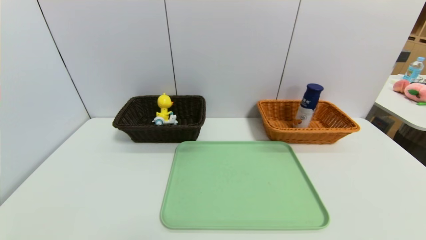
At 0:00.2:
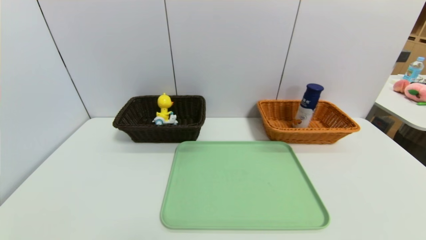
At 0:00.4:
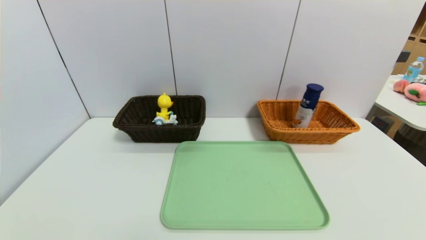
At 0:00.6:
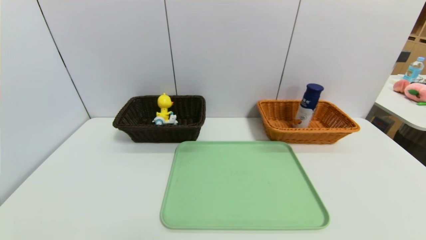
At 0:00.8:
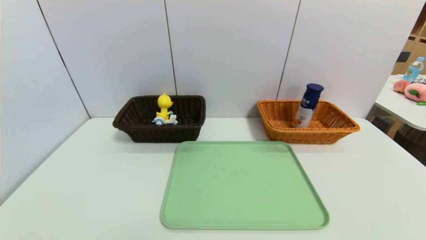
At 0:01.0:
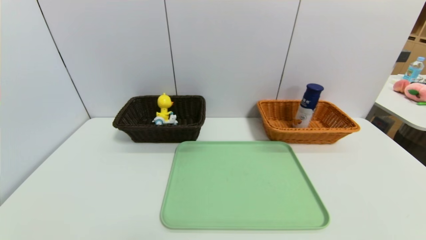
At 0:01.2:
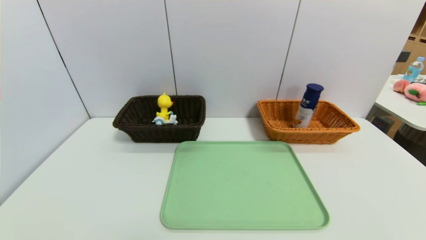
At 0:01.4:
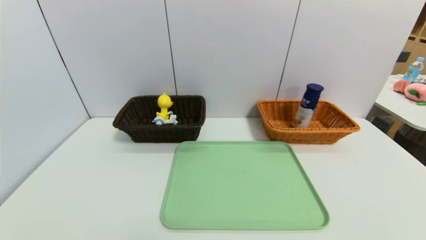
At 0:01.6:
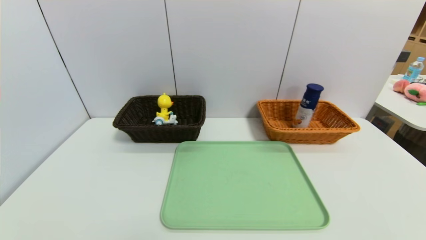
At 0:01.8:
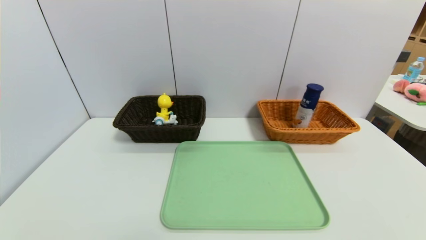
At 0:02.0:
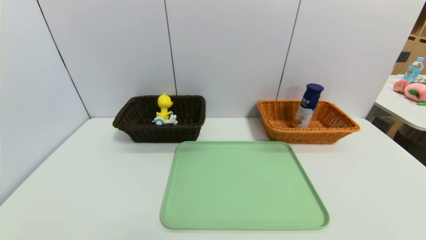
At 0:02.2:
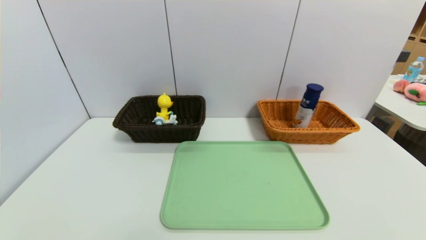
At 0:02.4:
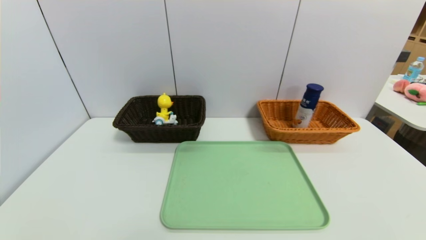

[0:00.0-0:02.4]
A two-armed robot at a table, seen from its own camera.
Task of the whole recording: place the food in the right basket with the right gripper, and place the non food items in the left basket with the left gripper.
0:01.2 to 0:02.4: Neither gripper changes place.

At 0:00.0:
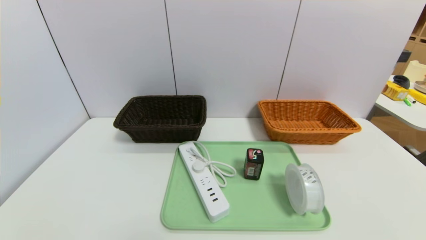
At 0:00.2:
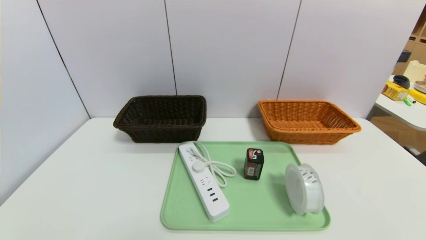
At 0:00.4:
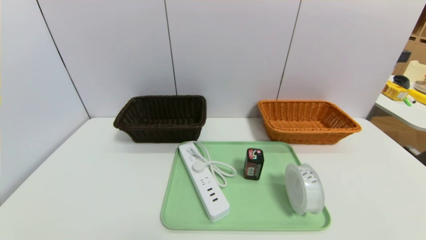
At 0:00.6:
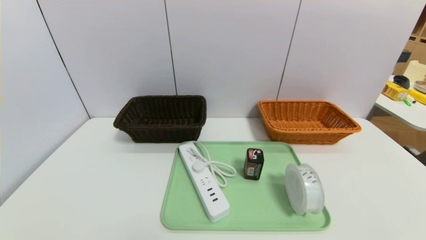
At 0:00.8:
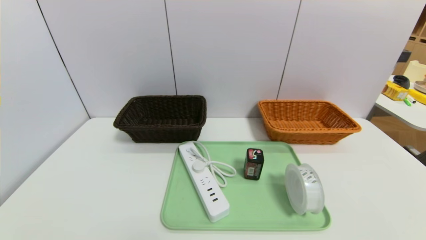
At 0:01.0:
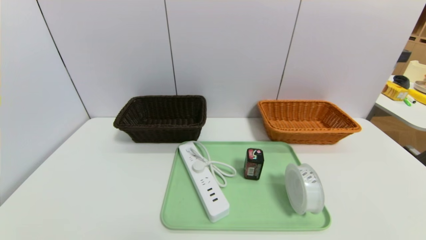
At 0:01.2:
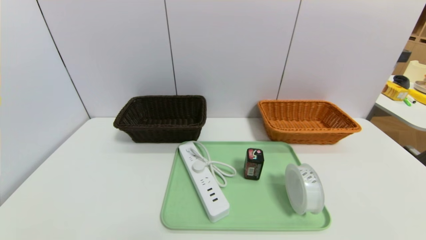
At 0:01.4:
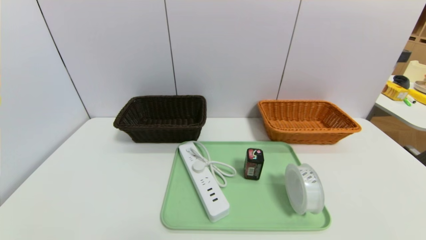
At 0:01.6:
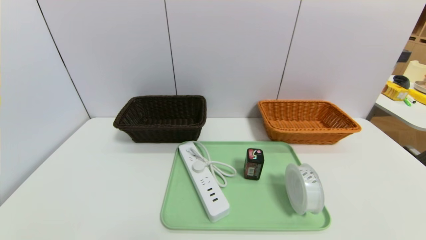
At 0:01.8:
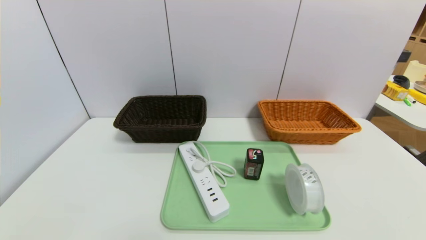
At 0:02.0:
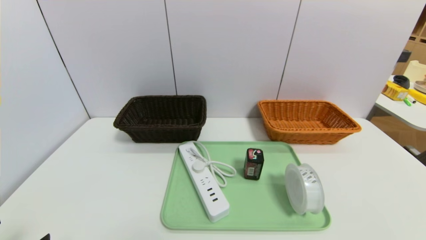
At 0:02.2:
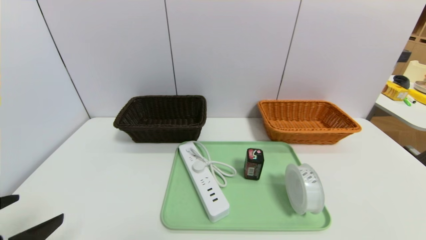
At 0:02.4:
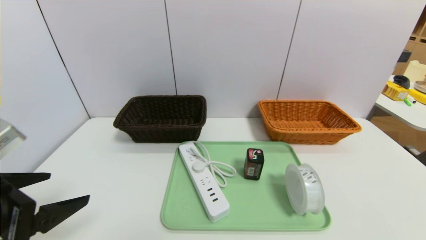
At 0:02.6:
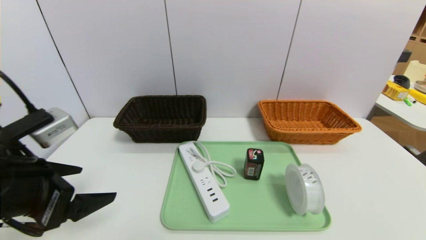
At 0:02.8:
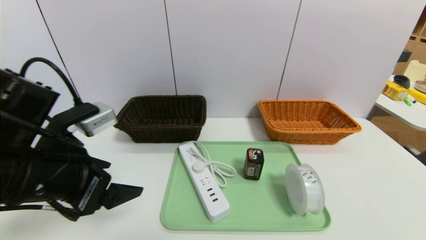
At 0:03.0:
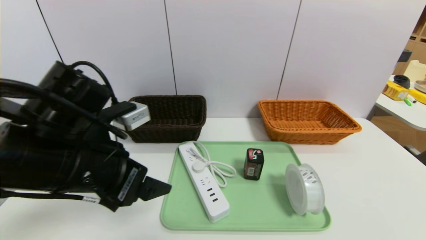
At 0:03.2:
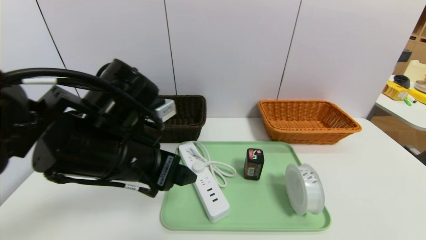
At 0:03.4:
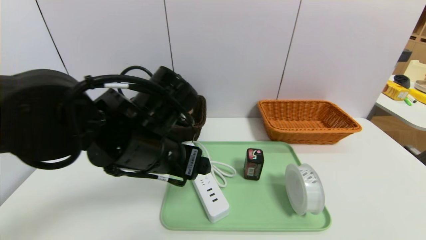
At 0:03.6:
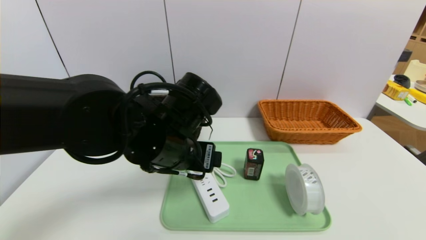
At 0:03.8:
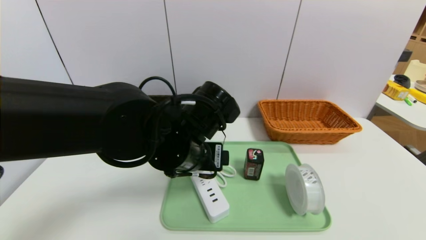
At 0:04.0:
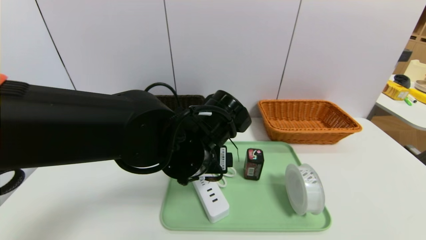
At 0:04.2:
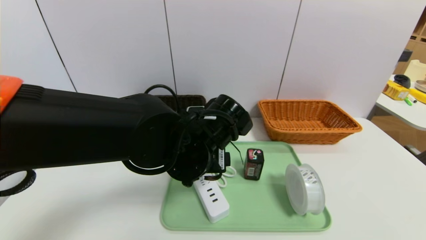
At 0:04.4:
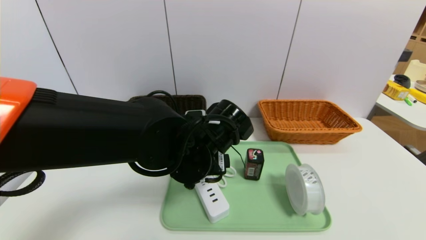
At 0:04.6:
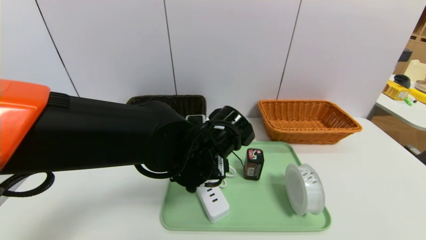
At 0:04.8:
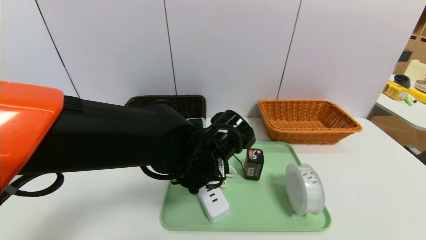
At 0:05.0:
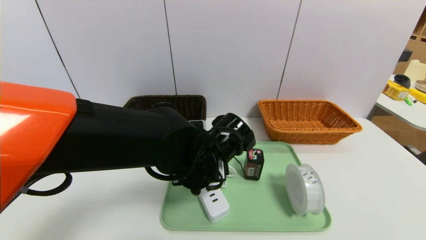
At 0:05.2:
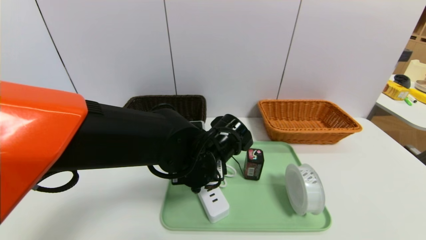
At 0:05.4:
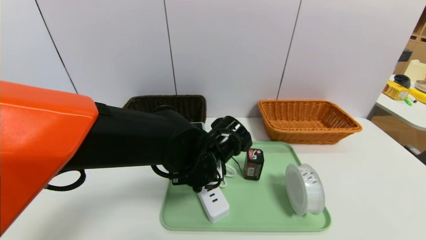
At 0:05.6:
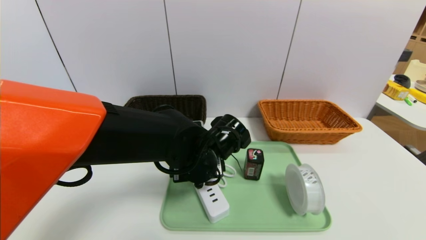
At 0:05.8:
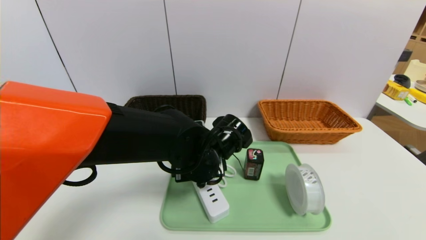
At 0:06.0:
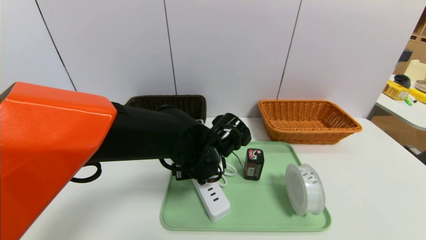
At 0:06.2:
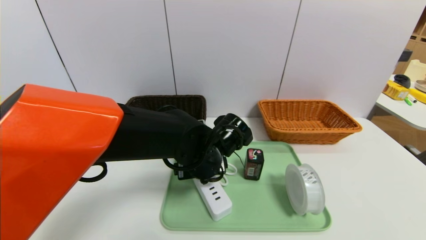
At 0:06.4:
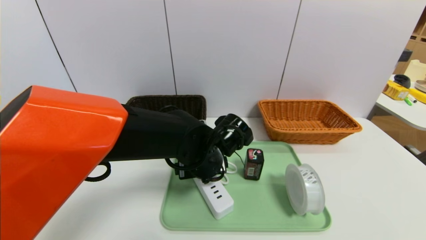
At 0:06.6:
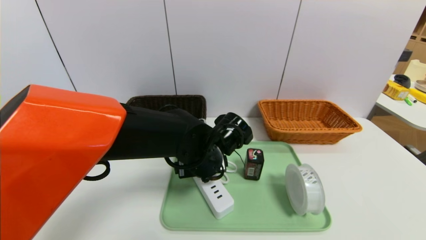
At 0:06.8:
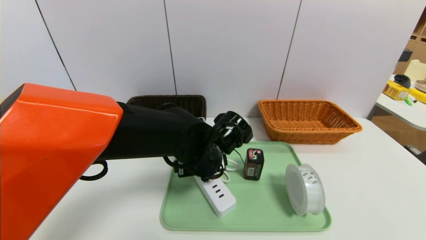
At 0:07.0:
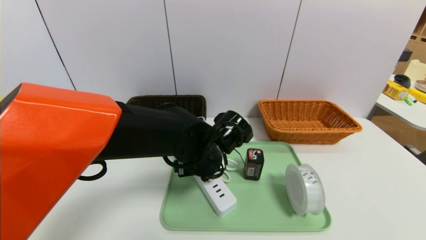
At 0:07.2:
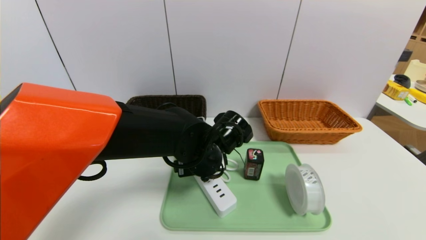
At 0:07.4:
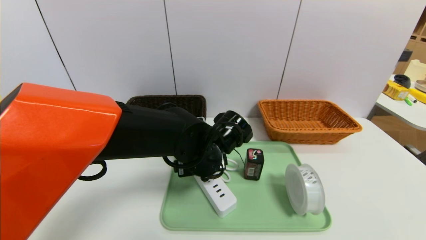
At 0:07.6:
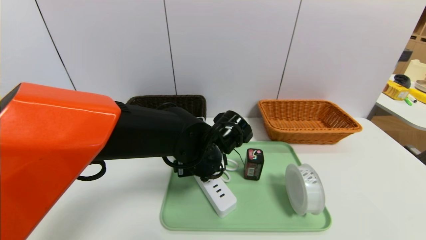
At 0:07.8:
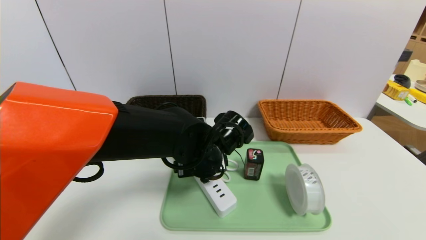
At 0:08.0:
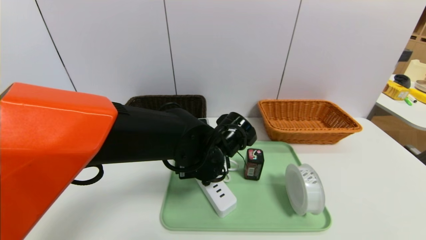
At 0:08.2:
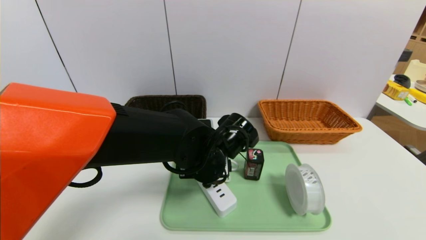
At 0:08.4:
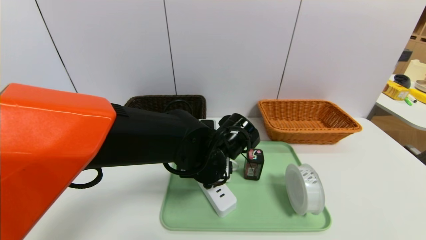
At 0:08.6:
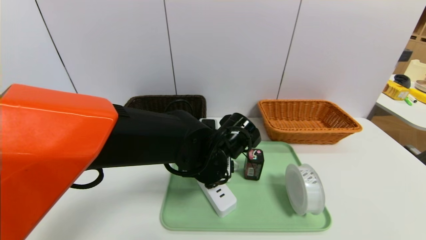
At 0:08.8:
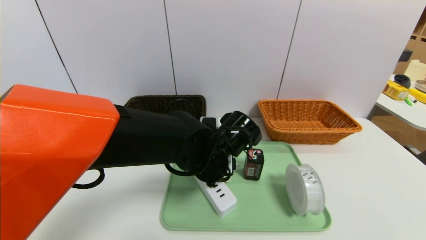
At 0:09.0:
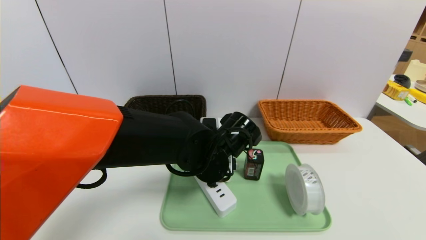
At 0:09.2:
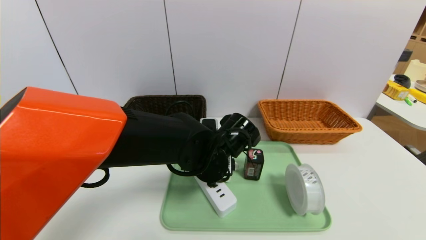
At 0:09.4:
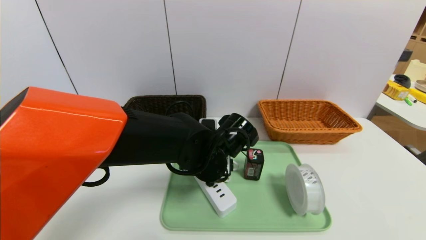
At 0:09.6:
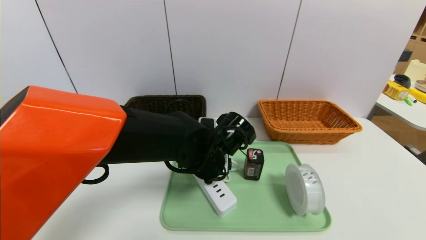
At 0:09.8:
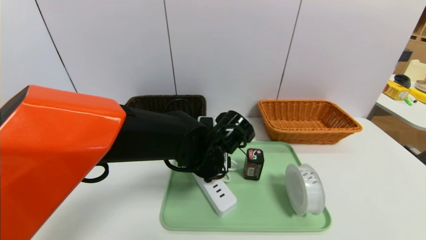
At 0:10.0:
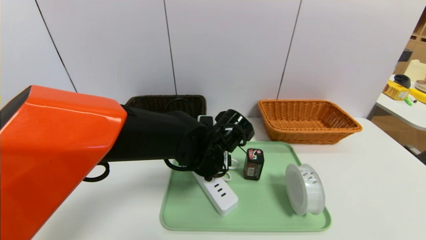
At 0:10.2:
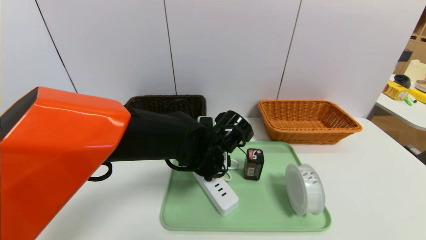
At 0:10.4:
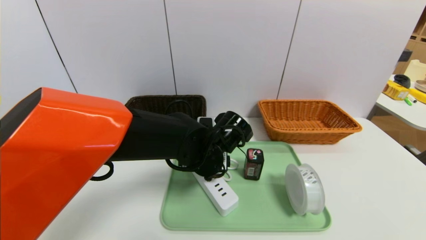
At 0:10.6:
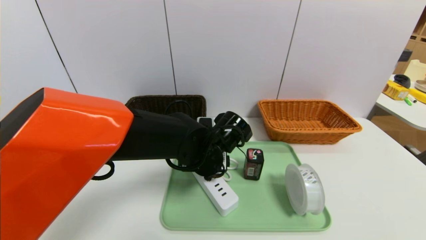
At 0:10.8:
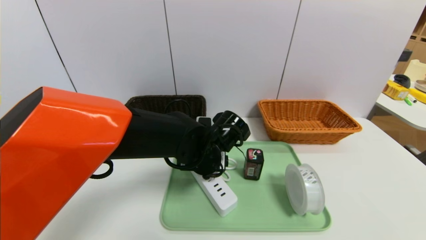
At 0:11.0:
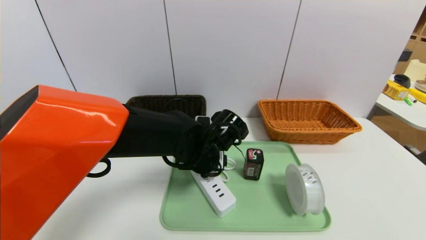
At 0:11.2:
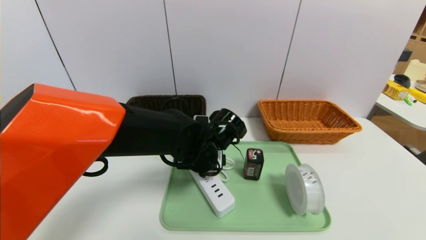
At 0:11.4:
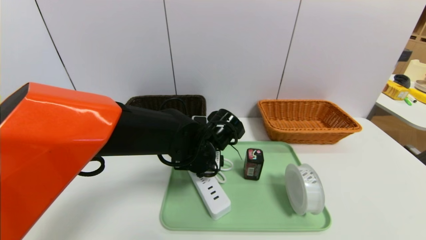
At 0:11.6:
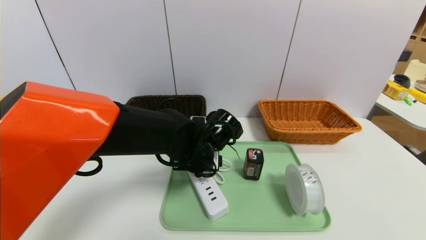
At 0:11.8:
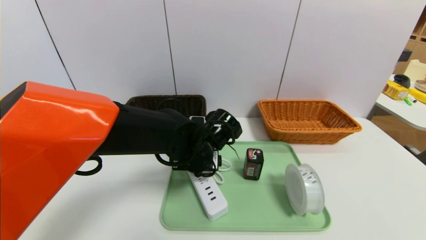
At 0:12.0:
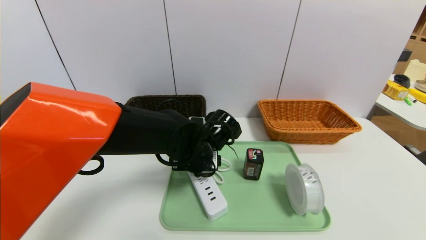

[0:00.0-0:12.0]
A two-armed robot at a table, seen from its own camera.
Task of the whole recording: place the food in the right basket with the right gripper, and place the non food items in the left basket with the left gripper.
0:01.6 to 0:03.0: The left gripper heads forward, upward and to the right, covering about 30 cm.
0:03.0 to 0:04.4: The left gripper heads to the right, downward and forward, covering some 15 cm.
0:04.4 to 0:06.0: The left gripper moves some 5 cm.
0:06.0 to 0:07.6: Both grippers stay put.
0:07.6 to 0:12.0: There are only small adjustments of the grippers.

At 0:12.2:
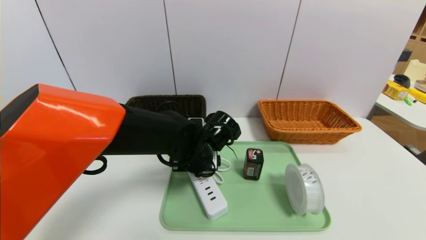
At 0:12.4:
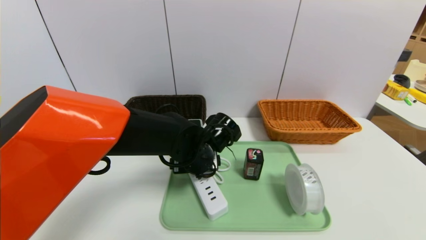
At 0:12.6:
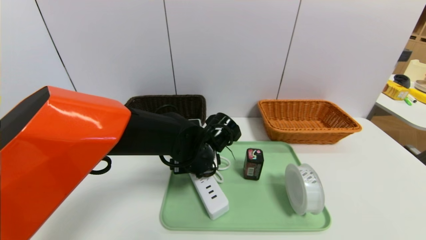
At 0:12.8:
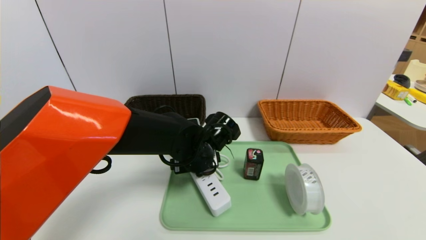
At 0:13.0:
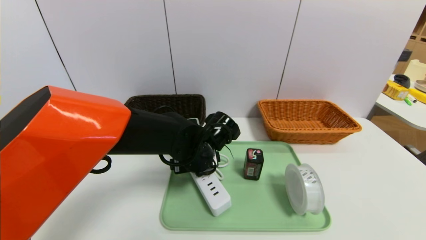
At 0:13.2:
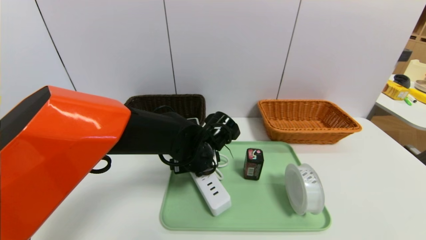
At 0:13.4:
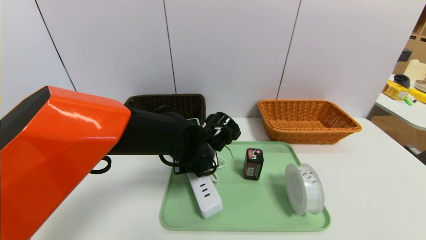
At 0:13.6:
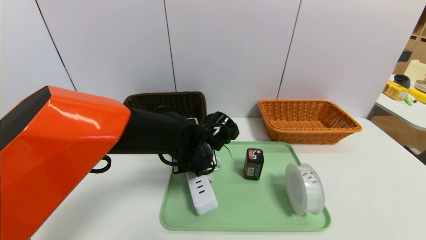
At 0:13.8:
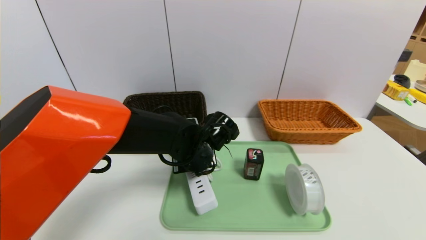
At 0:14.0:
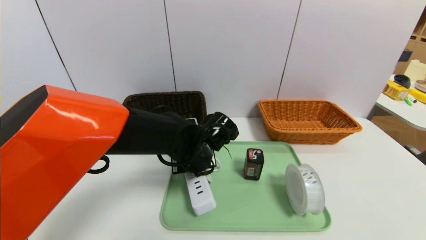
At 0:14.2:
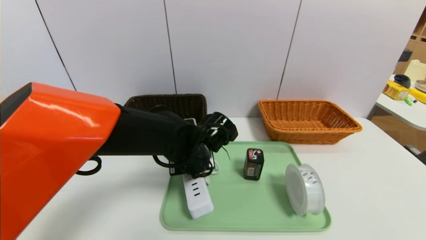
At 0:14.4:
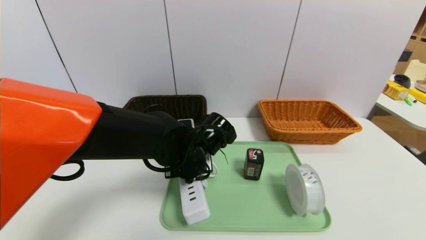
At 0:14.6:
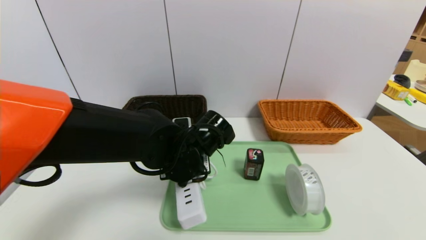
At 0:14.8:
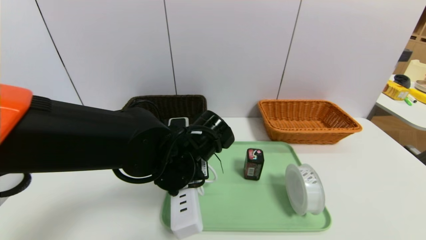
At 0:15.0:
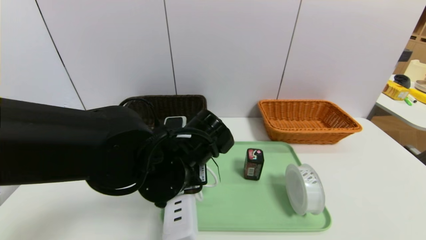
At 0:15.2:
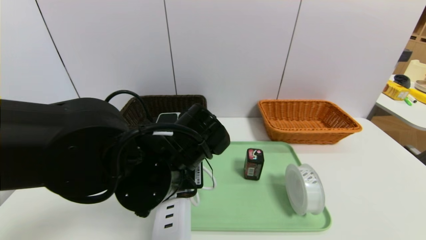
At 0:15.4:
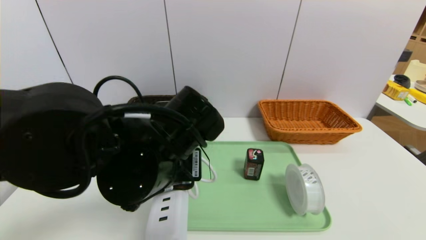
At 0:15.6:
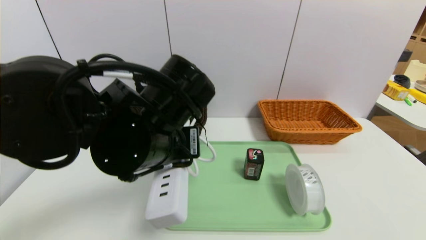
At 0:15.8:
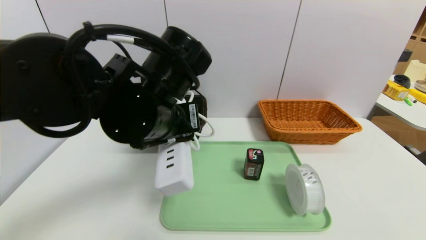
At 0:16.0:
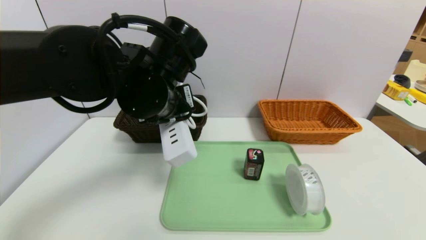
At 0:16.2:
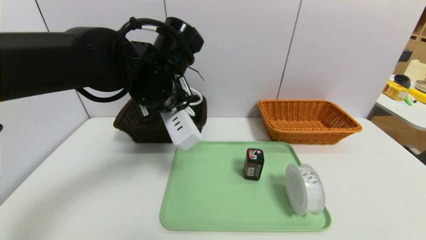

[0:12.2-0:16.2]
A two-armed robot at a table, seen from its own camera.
Task of the whole recording: place the food in the right basket with the right gripper, and place the non food items in the left basket with the left gripper.
0:12.2 to 0:13.6: The left gripper closes its fingers.
0:13.6 to 0:14.8: The left gripper travels backward by roughly 5 cm.
0:14.8 to 0:16.2: The left gripper shifts about 15 cm upward and forward.
